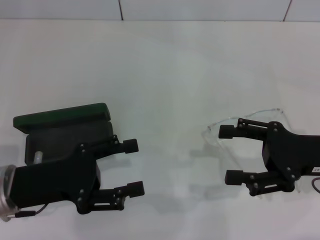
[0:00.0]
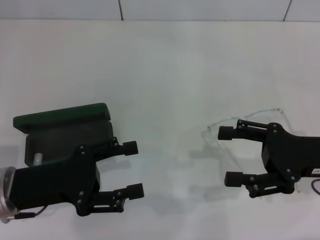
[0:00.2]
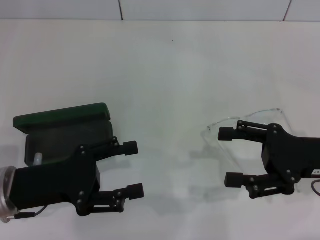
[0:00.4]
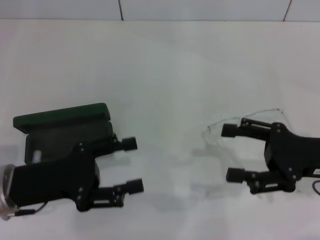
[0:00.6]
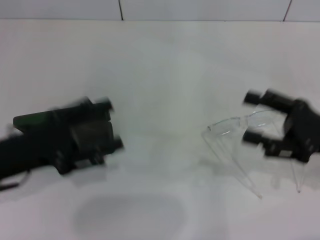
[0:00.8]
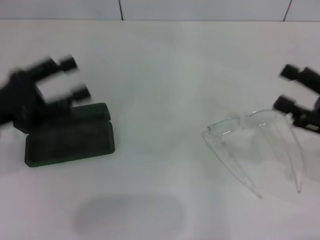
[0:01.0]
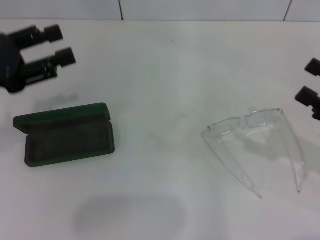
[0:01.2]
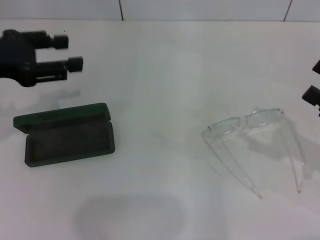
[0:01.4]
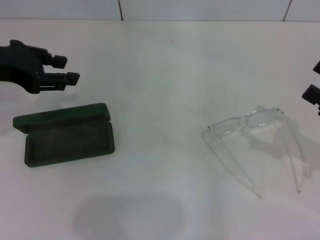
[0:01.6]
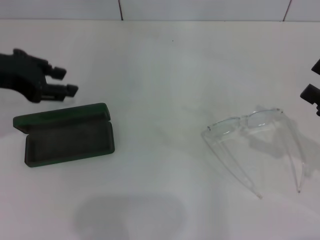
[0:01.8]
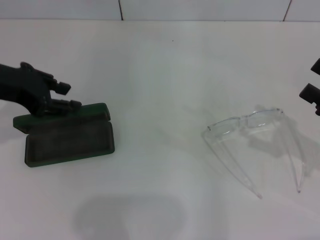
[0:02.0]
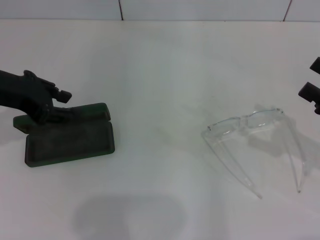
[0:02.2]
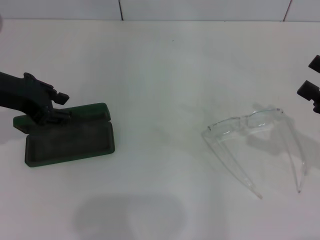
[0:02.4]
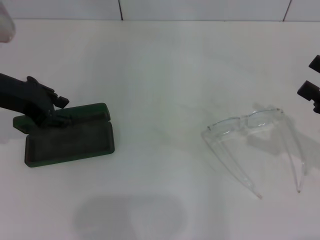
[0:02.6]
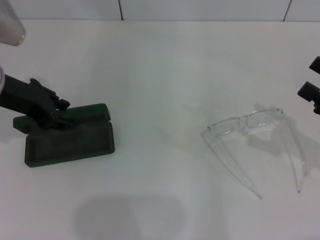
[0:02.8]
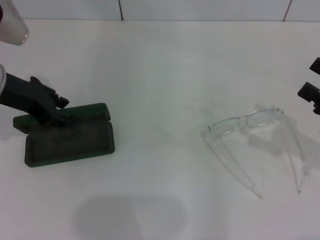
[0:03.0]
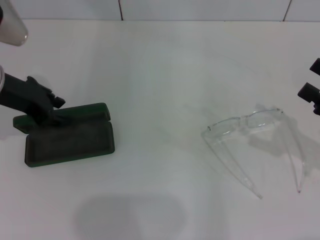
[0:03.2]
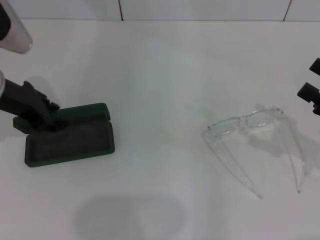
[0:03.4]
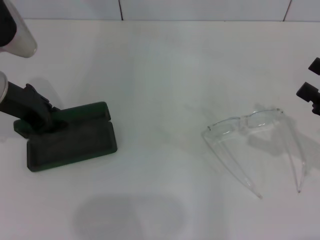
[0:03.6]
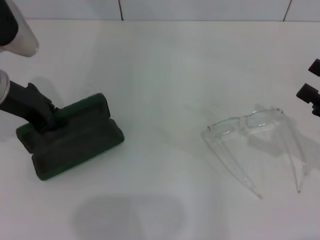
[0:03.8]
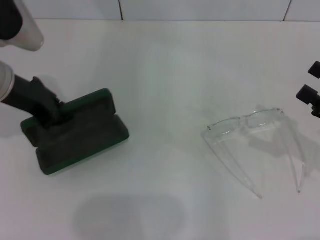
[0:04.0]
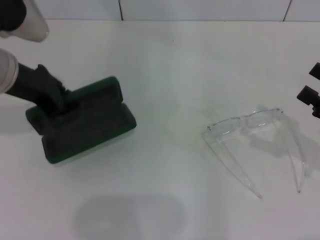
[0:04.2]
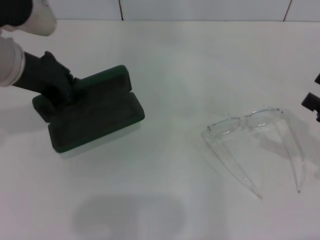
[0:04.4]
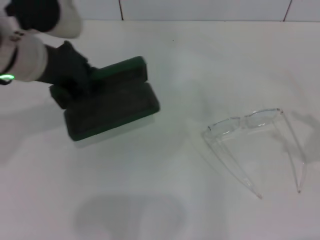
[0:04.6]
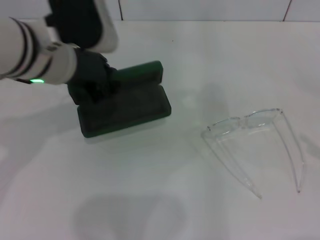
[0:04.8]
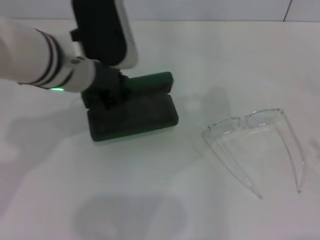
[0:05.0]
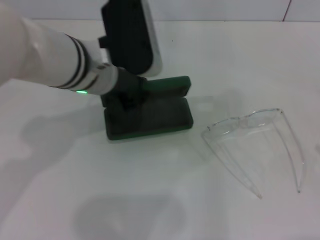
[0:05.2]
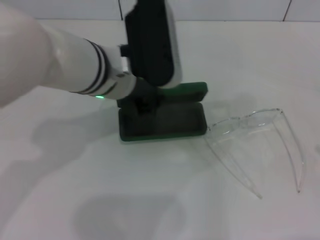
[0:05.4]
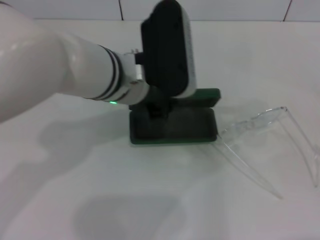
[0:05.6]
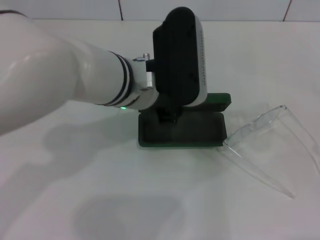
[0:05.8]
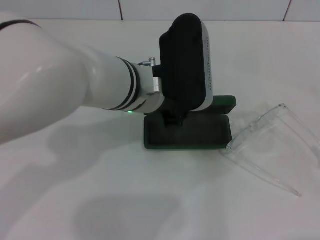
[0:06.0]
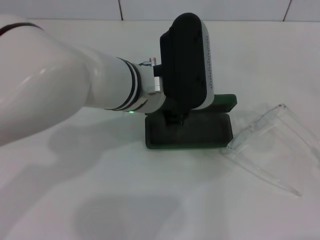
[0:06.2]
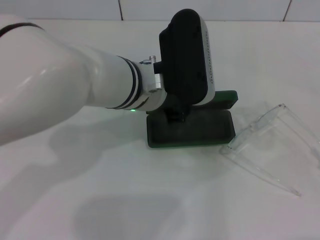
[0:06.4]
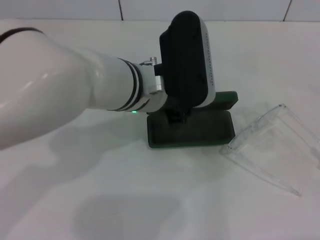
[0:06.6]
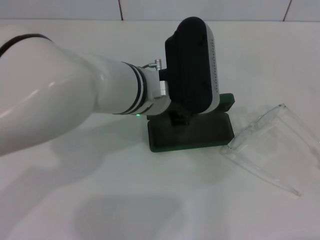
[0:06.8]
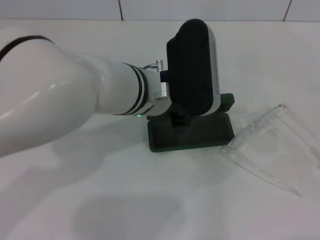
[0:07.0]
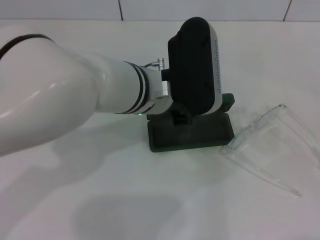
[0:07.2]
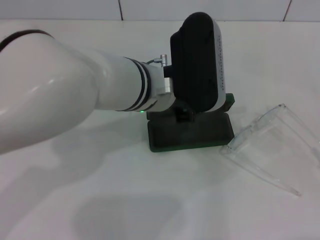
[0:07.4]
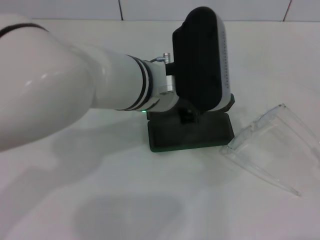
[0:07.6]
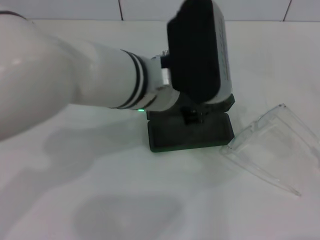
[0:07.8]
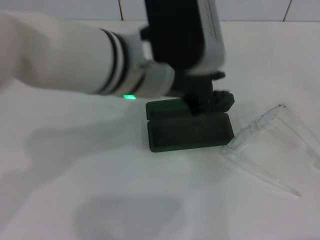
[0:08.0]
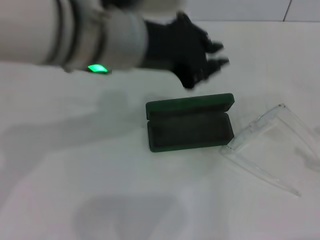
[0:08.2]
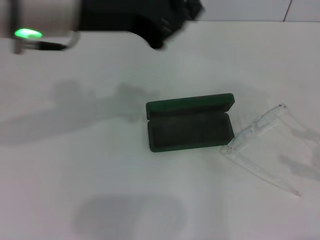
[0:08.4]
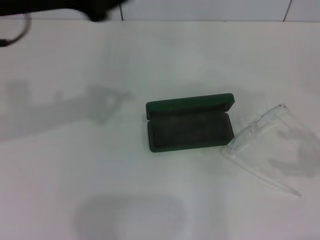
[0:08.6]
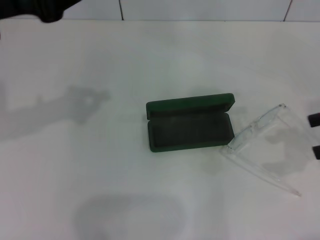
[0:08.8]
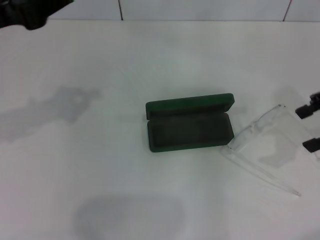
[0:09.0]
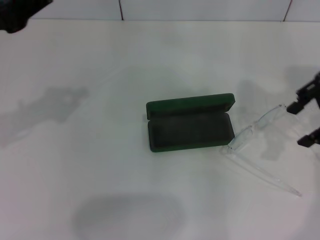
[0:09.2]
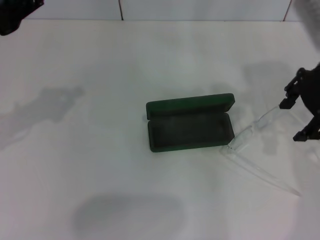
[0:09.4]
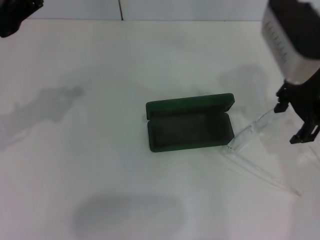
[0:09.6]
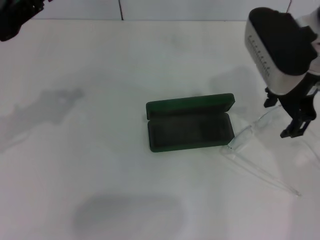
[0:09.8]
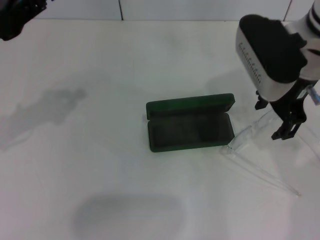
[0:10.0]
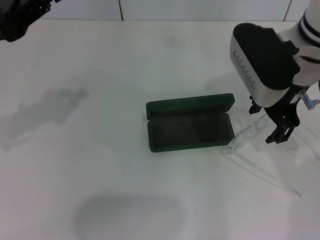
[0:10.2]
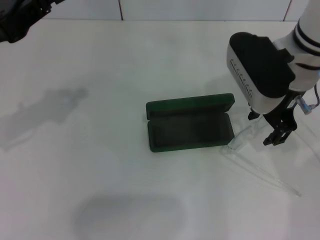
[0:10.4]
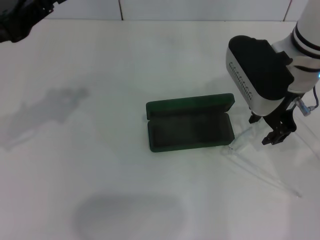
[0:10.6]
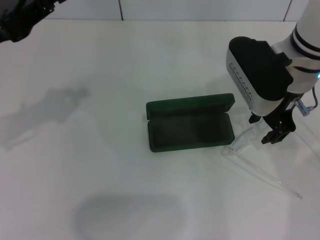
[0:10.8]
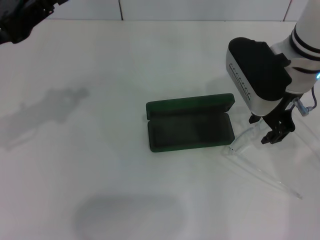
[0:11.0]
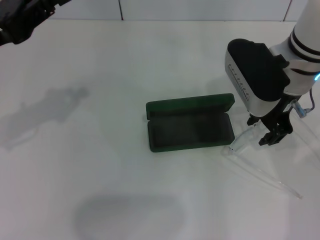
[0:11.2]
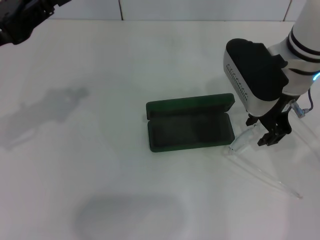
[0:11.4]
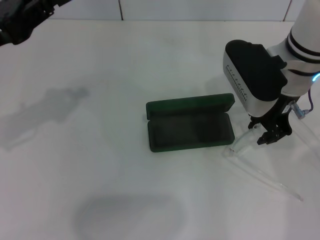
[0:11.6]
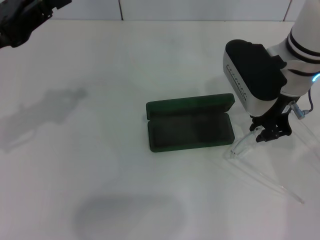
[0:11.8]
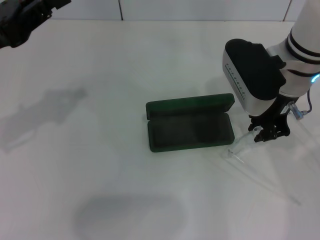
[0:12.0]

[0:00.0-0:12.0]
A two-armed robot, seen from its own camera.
Step, 0:00.0 to 0:04.0: Grab the glasses case with your left hand.
Step, 0:04.2 to 0:07.0: Place the glasses case in the center of the table with your left hand.
Step, 0:07.2 to 0:12.0: Grab the eyeglass frame with your right hand.
0:00.0 to 0:01.6: The right gripper shifts roughly 10 cm to the right, while the left gripper heads upward and forward, covering some 20 cm.
0:01.6 to 0:03.0: The left gripper ends up about 5 cm from where it was.
0:03.0 to 0:04.4: The left gripper ends up approximately 5 cm from where it was.
0:04.4 to 0:06.0: The left gripper moves to the right, approximately 15 cm; the right gripper heads backward and to the right, covering approximately 10 cm.
0:06.0 to 0:07.6: The grippers make only small movements.
0:07.6 to 0:09.0: The left gripper heads to the left, covering about 25 cm. The right gripper shifts approximately 25 cm forward, upward and to the left.
0:09.0 to 0:10.4: The right gripper is displaced to the left by roughly 15 cm.
0:10.4 to 0:12.0: The right gripper closes.

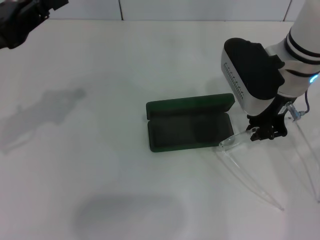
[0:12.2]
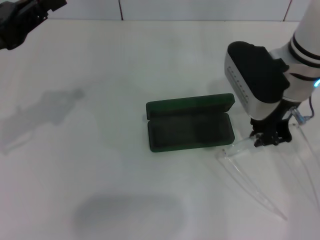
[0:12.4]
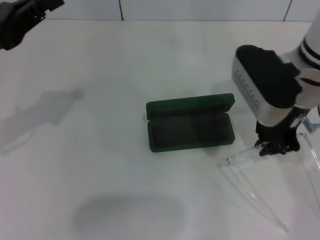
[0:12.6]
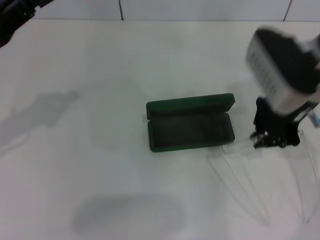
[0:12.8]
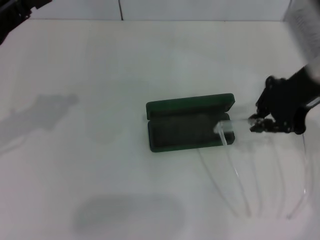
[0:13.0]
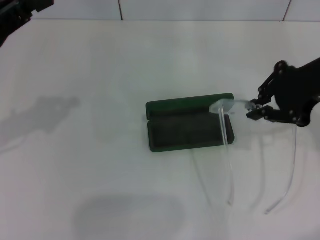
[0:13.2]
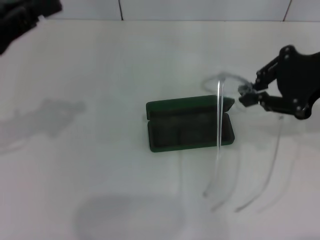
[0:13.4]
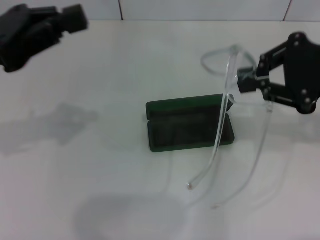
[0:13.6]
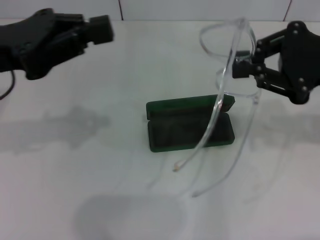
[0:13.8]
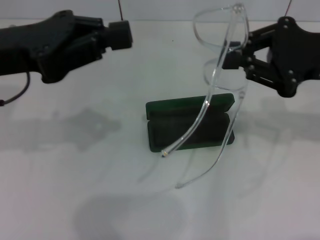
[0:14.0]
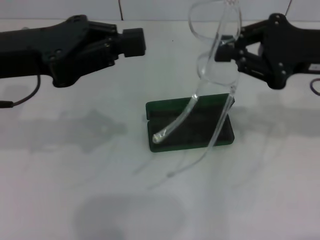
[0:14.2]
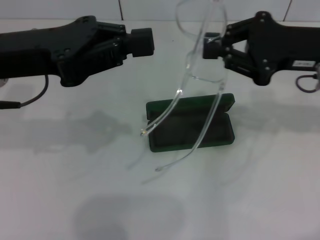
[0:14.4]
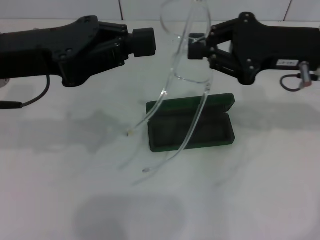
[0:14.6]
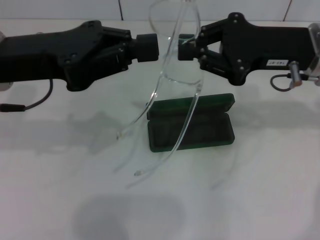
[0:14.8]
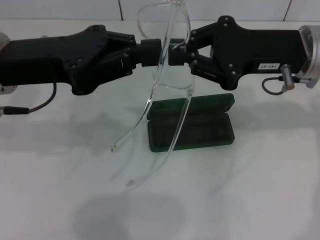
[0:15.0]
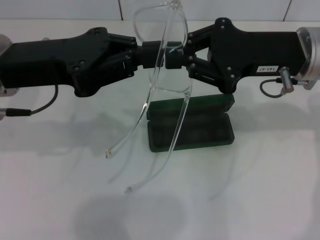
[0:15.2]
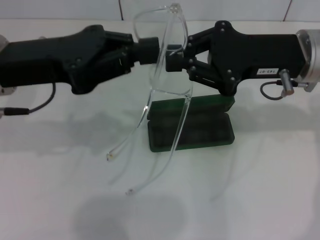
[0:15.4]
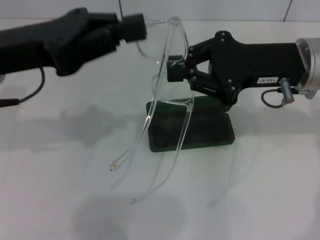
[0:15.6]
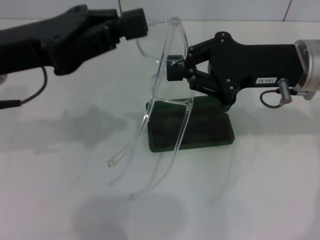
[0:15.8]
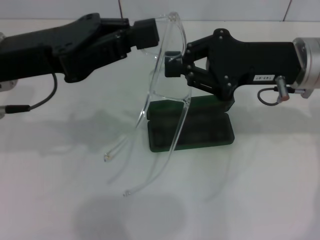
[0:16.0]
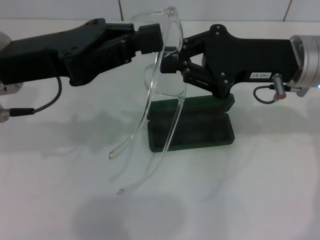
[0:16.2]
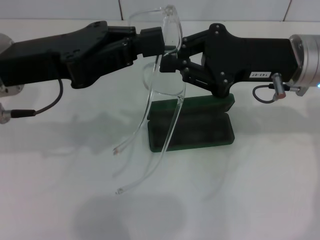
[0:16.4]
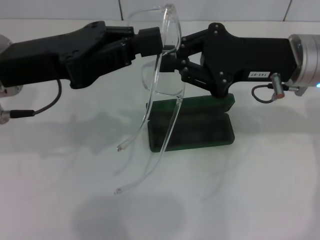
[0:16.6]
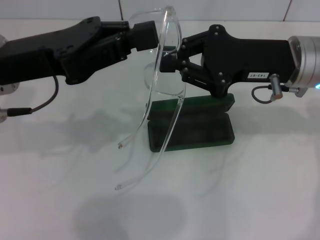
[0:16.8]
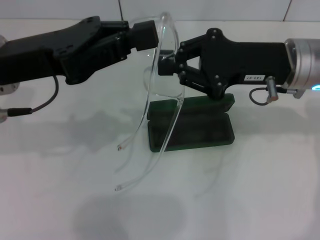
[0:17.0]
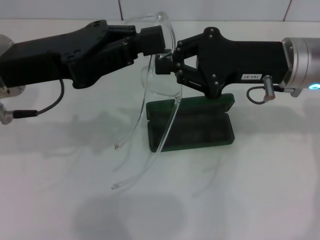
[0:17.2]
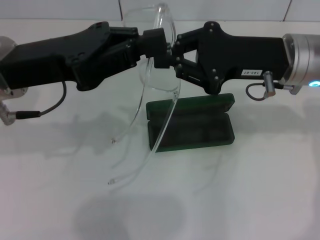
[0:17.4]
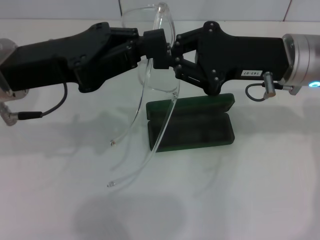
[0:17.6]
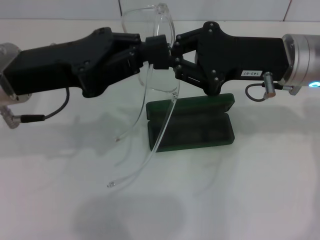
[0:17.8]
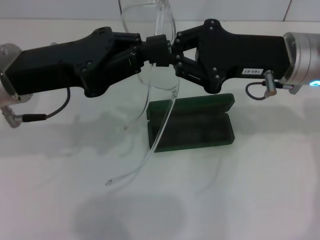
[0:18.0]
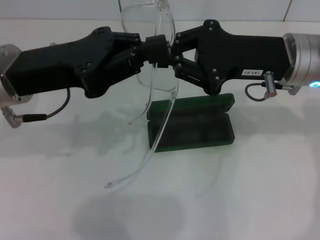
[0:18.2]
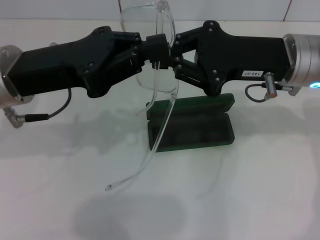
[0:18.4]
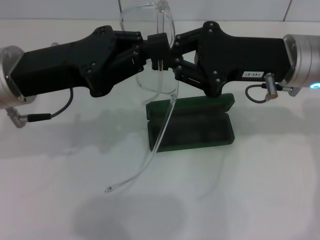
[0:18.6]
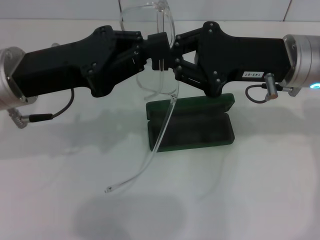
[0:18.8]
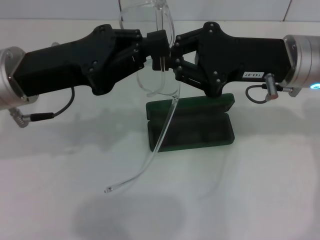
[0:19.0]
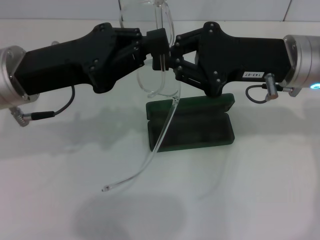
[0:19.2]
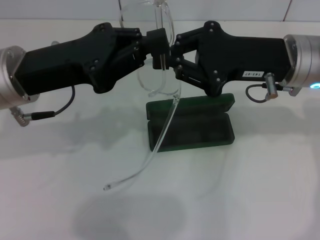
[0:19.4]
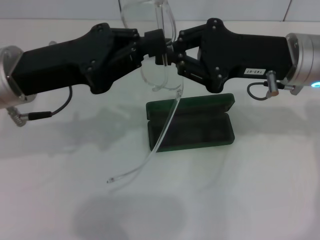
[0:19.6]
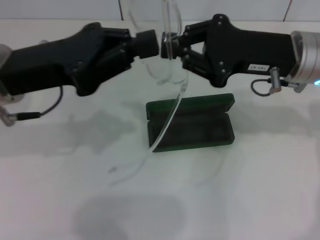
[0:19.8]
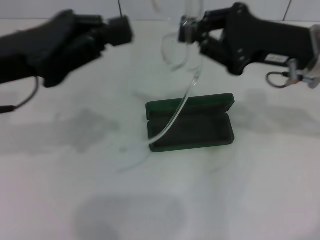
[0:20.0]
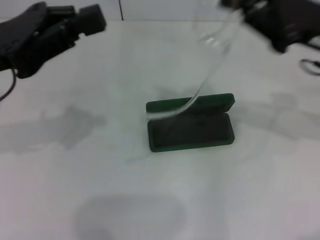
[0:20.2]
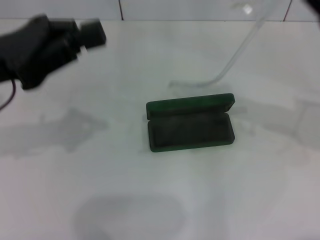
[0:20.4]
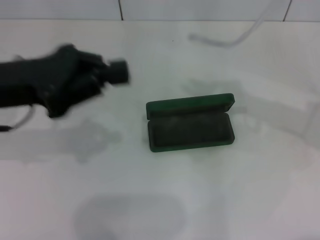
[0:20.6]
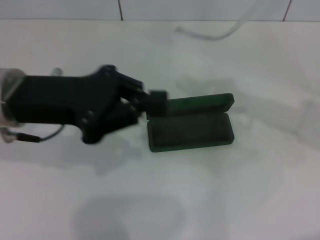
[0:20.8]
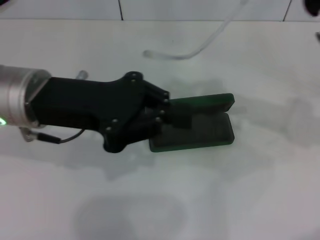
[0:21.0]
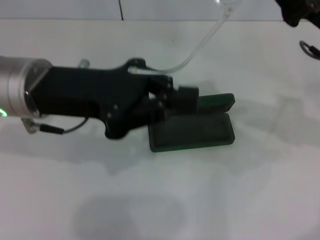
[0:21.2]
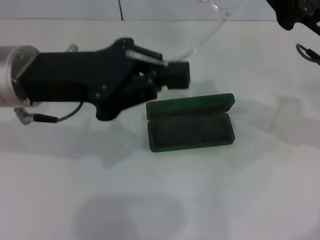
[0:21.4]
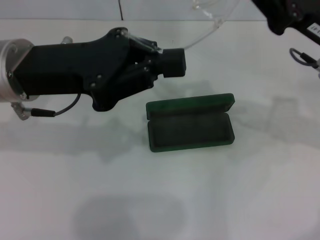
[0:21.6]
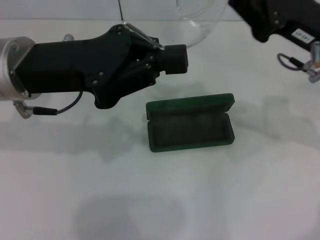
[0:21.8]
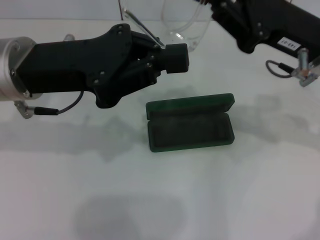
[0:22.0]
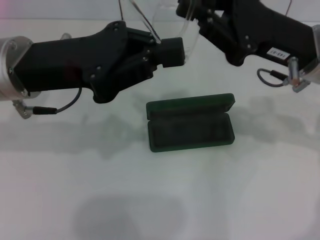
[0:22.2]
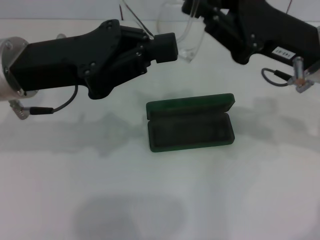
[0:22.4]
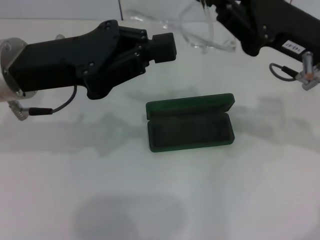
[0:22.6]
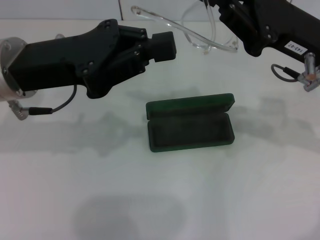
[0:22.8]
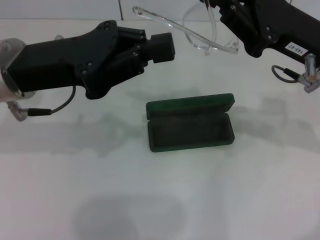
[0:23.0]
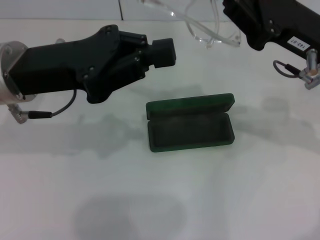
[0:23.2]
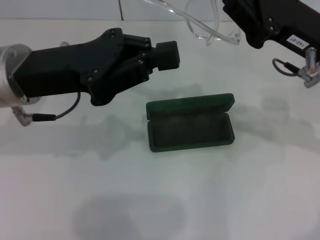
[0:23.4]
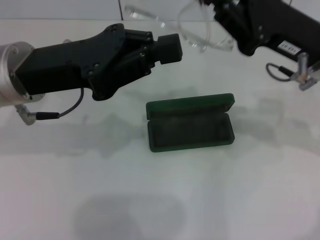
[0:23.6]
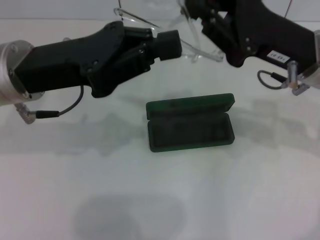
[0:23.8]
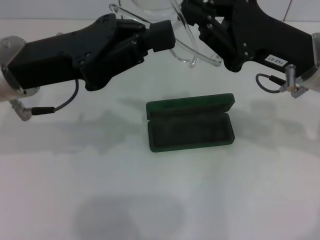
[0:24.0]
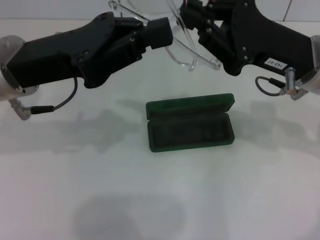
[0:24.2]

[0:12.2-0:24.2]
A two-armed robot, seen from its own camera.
0:12.2 to 0:13.8: The right gripper is displaced to the right, backward and upward by some 15 cm.
0:13.8 to 0:15.2: The right gripper goes about 5 cm to the left.
0:15.2 to 0:16.6: The grippers stay close to where they were, moving slightly.
0:16.6 to 0:18.2: Both grippers stay put.
0:18.2 to 0:19.8: Both grippers stay put.
0:22.6 to 0:24.2: There are only small adjustments of the grippers.
